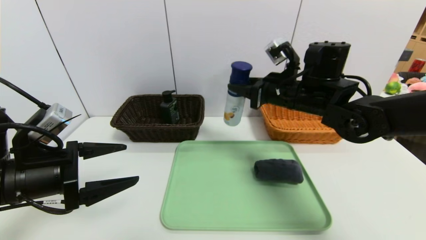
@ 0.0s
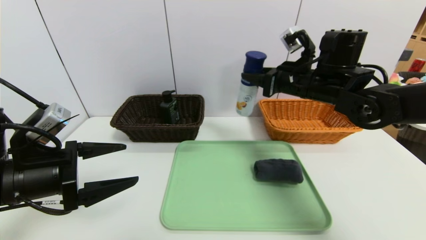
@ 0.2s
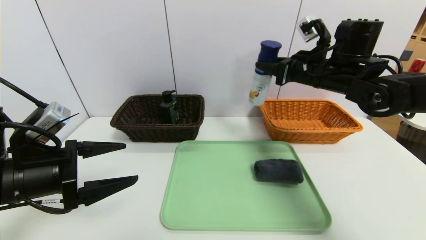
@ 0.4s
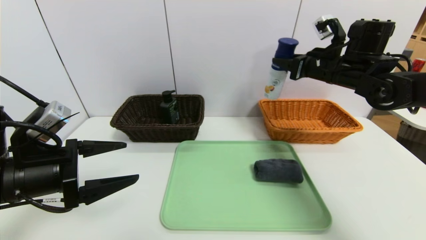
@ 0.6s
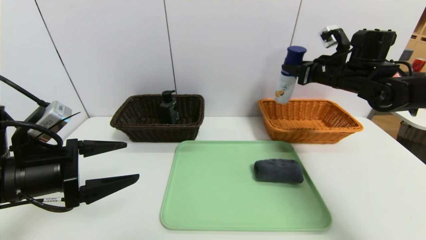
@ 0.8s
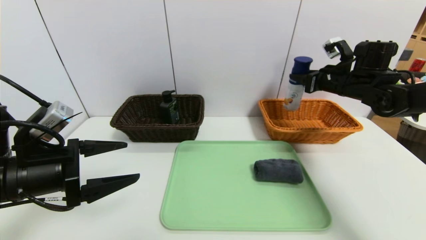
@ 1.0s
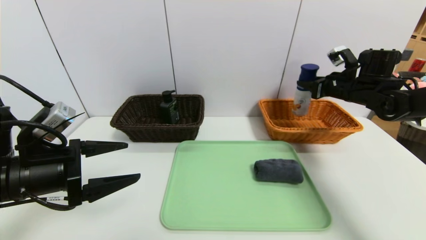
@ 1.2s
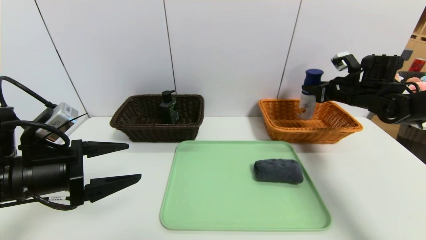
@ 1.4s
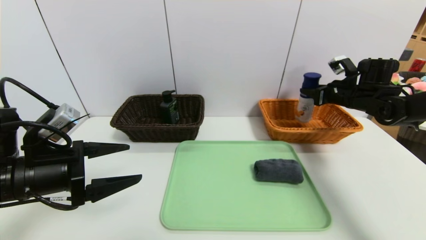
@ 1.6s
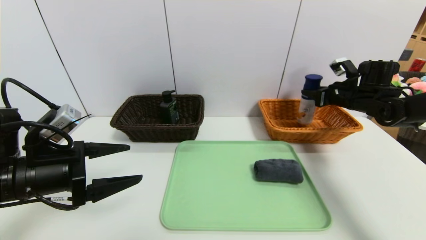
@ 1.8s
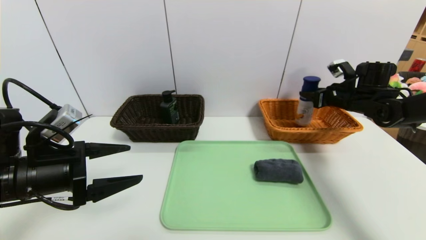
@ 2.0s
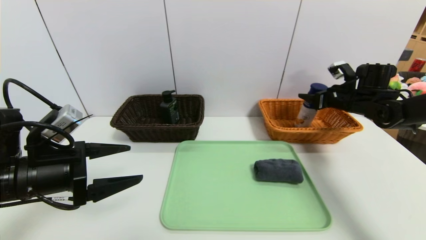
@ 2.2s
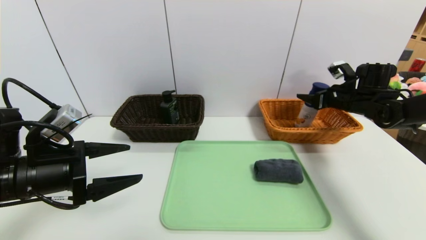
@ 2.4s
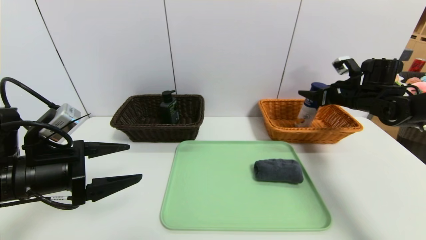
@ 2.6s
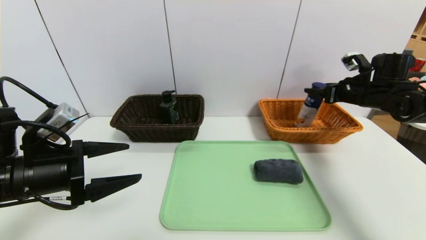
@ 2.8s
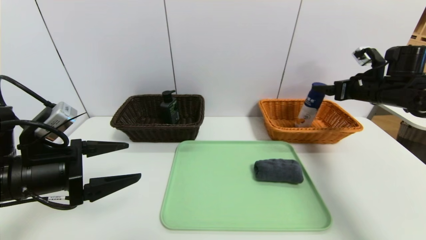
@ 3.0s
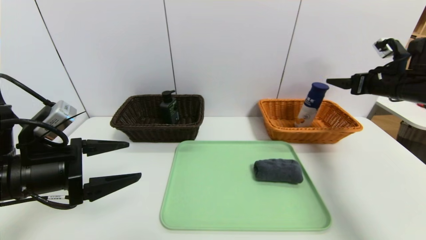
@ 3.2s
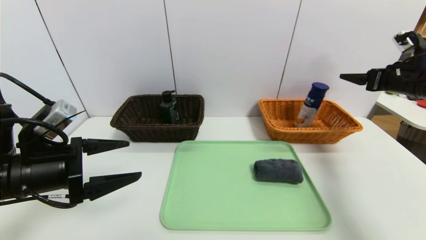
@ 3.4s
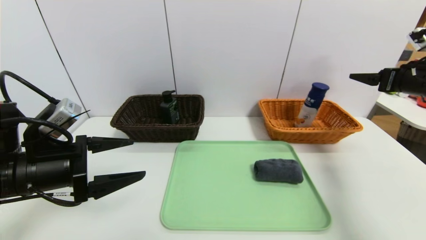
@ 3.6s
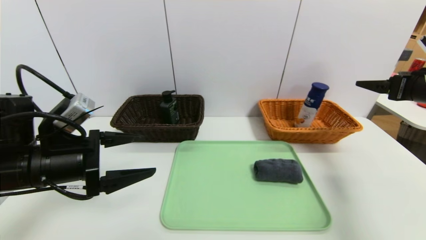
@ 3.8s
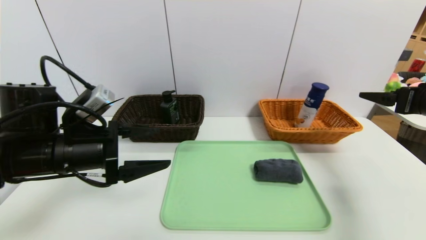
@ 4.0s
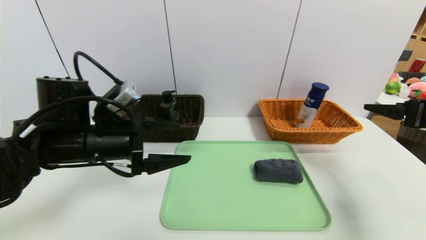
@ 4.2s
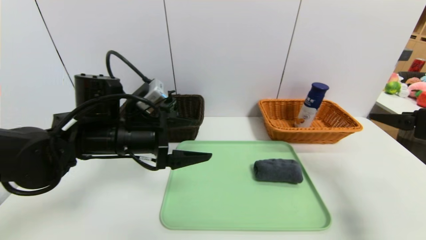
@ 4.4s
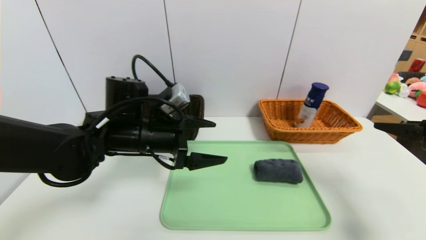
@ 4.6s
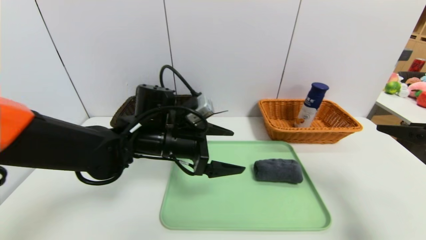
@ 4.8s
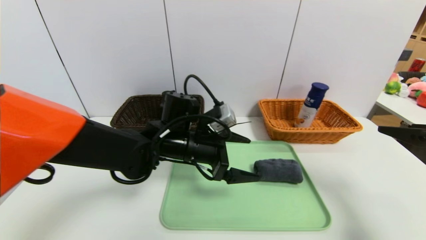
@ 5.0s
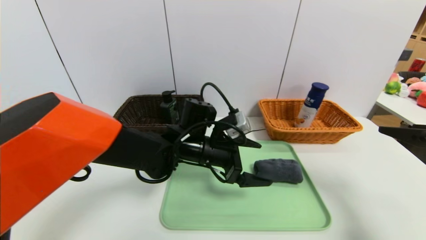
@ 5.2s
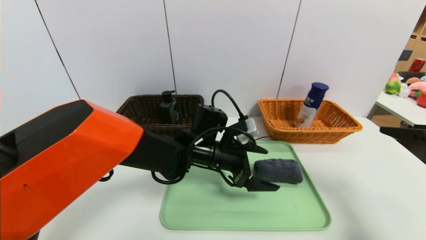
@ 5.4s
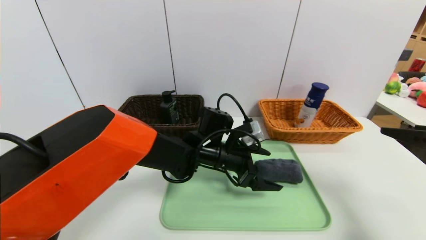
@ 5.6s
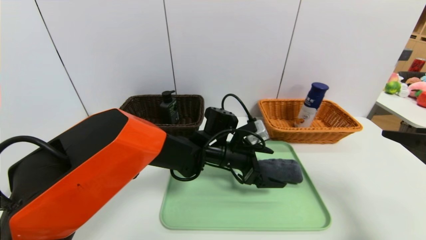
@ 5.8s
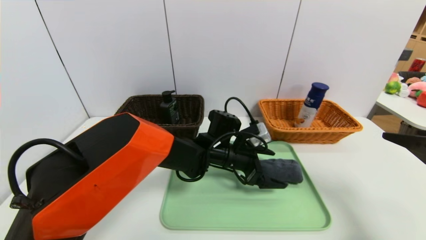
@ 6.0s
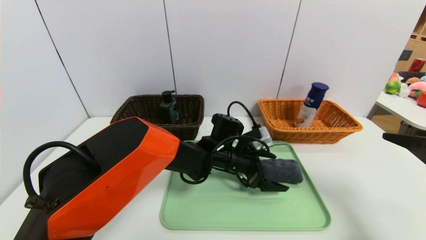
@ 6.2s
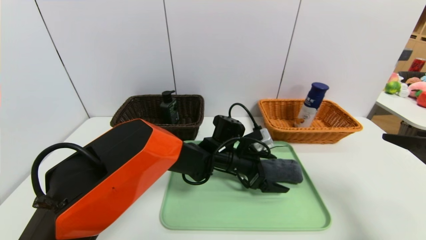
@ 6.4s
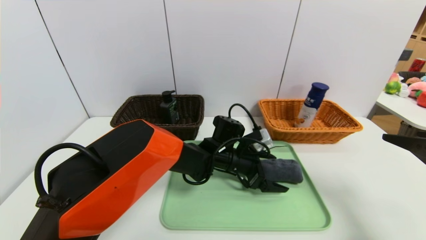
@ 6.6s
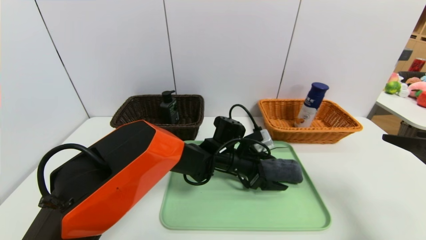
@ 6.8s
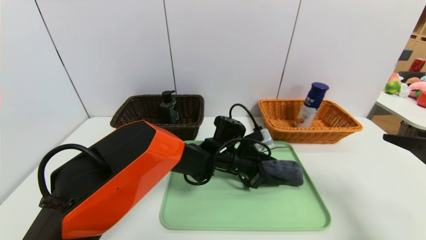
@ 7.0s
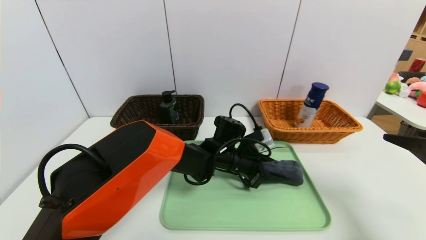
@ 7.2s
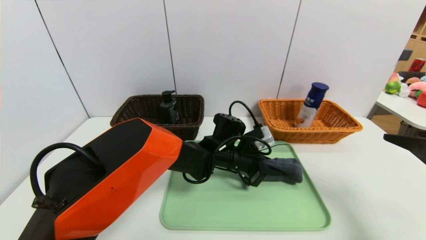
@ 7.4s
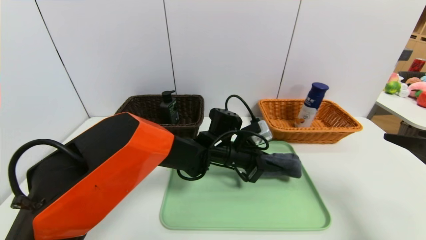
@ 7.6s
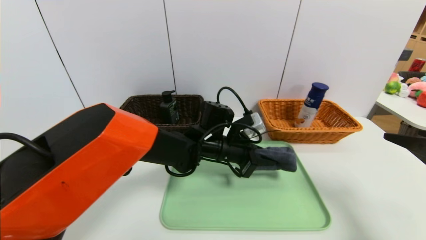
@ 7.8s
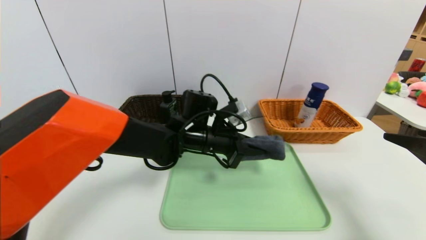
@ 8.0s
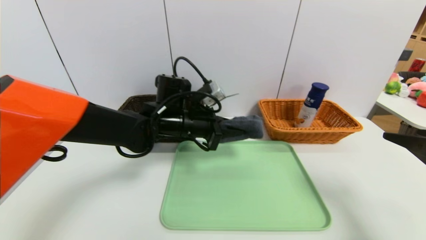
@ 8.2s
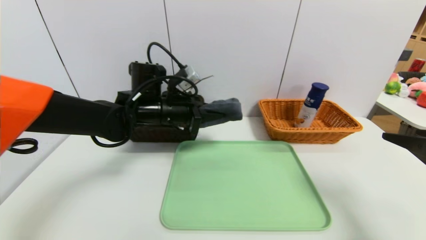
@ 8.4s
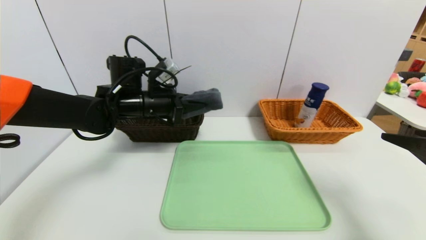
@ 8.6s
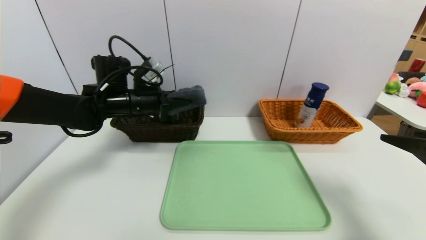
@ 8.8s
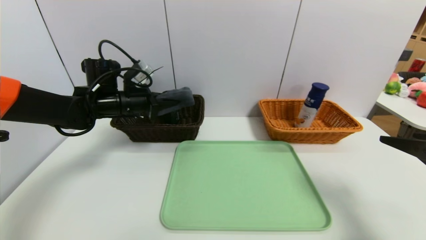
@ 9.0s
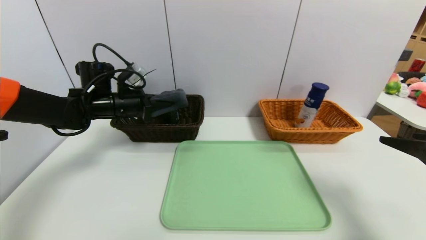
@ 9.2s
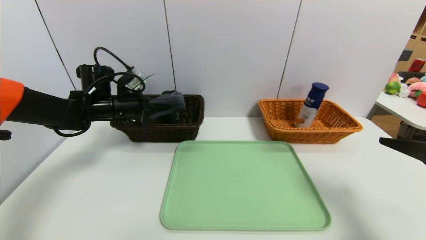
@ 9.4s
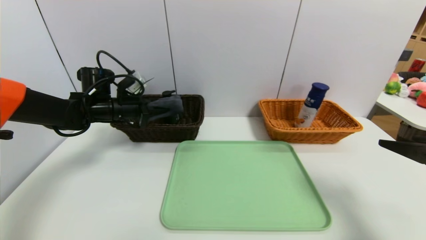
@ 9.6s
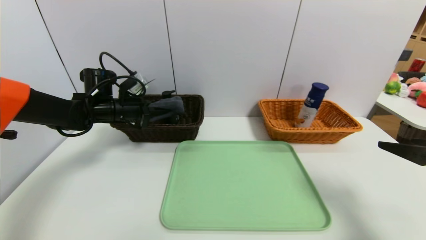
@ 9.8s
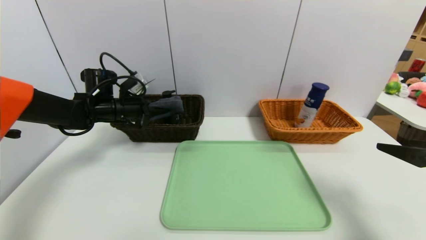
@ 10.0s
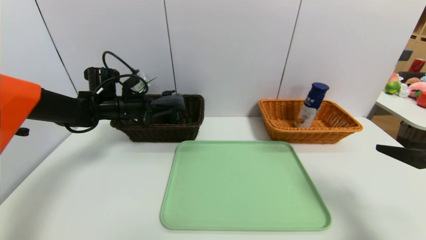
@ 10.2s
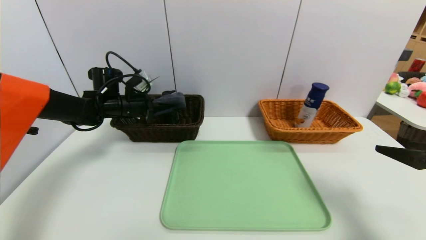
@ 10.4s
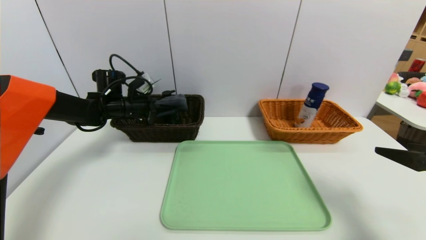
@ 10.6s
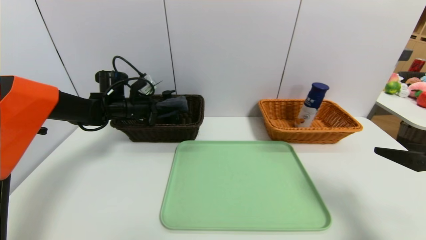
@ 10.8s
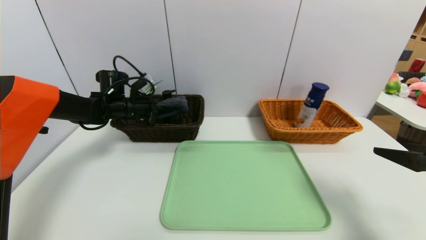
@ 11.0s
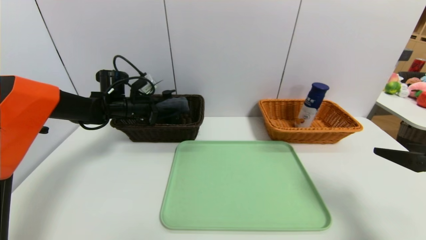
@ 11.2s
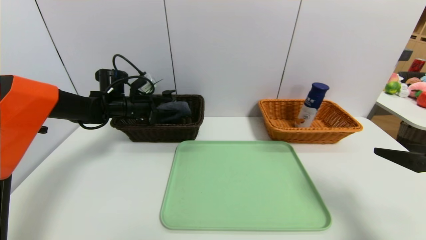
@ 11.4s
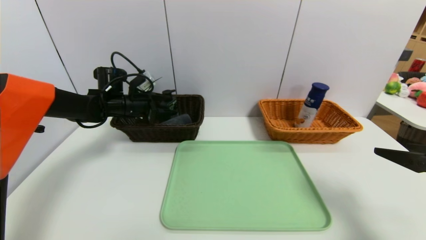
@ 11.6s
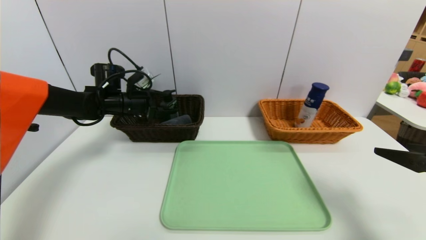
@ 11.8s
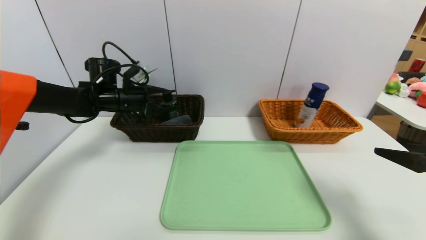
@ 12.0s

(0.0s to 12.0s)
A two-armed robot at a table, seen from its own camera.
Task of the whole recording: place the food in the right basket with the right gripper, and place the non food items in the left basket with the left gripper.
Step, 0.0s - 2.8s: Grasp the yogurt and put it in the right basket.
Step, 3.0s - 11.6s: Grasp the grey towel and put it in the left basket.
0.0s - 1.6s: The right gripper heads to the right and forward, covering roughly 20 cm.
1.6s - 3.0s: The right gripper ends up some 5 cm from where it was, and opens its fingers.
3.0s - 4.4s: The left gripper goes approximately 15 cm to the right and forward. Meanwhile the right gripper travels backward by approximately 20 cm.
4.4s - 6.0s: The left gripper shifts approximately 20 cm to the right and downward. Meanwhile the right gripper changes place by roughly 5 cm.
6.0s - 7.6s: The left gripper closes its fingers.
7.6s - 9.0s: The left gripper shifts some 25 cm to the left.
9.0s - 10.4s: The left gripper moves about 5 cm.
10.4s - 12.0s: The left gripper opens up.

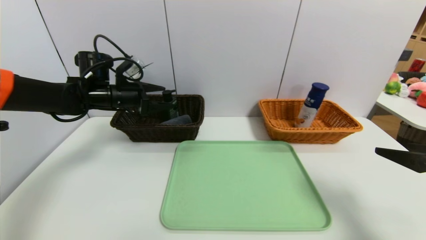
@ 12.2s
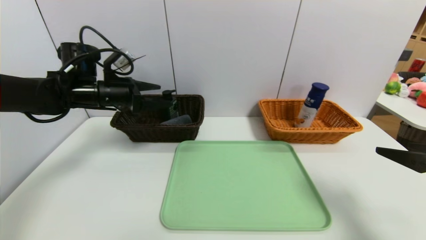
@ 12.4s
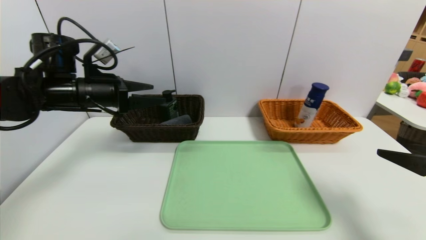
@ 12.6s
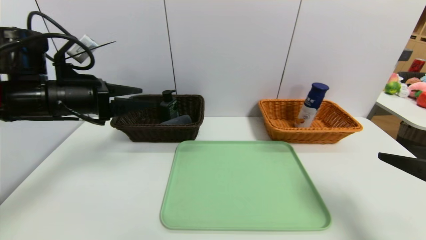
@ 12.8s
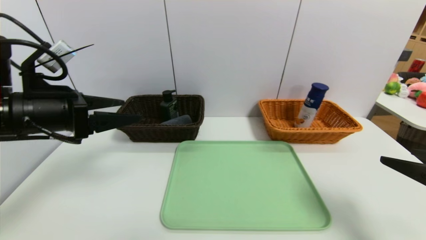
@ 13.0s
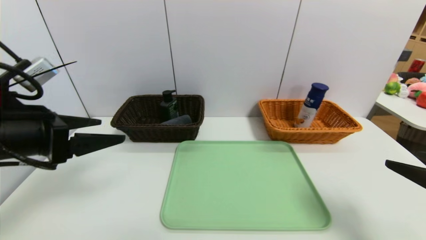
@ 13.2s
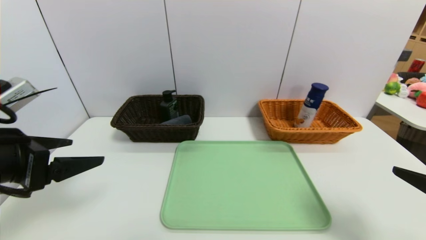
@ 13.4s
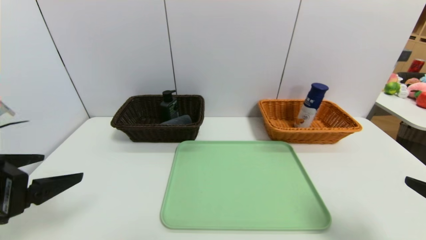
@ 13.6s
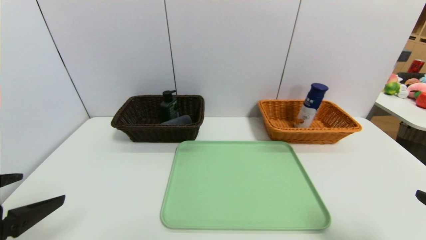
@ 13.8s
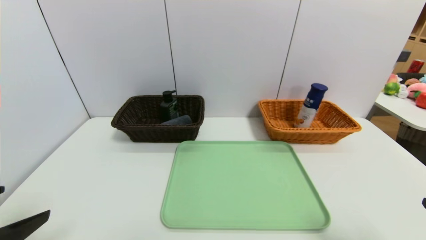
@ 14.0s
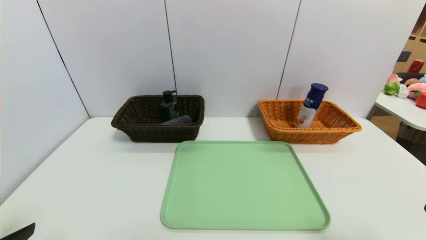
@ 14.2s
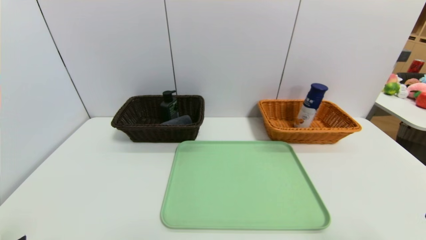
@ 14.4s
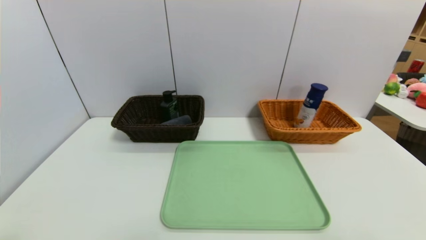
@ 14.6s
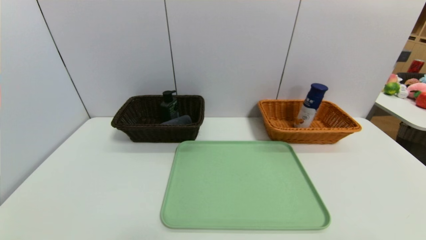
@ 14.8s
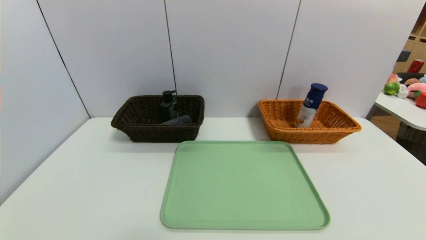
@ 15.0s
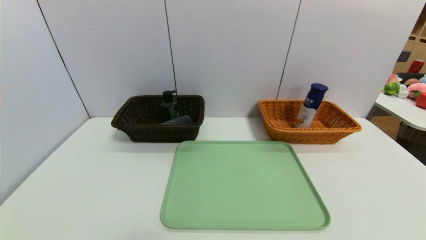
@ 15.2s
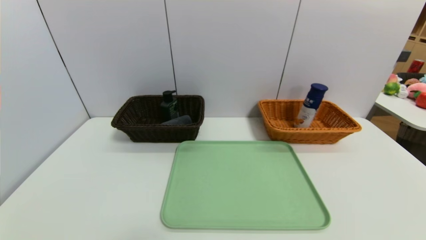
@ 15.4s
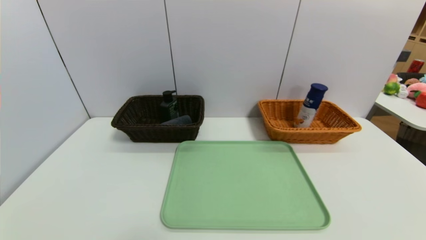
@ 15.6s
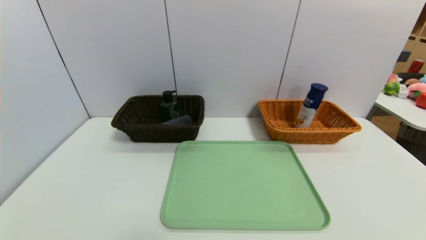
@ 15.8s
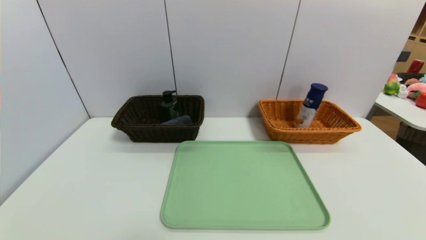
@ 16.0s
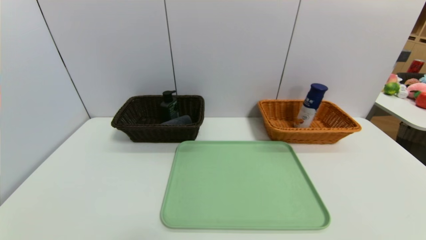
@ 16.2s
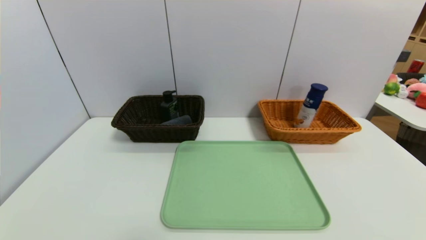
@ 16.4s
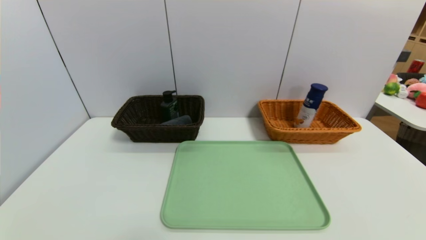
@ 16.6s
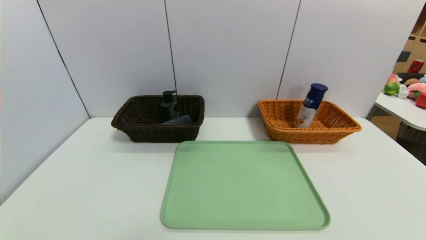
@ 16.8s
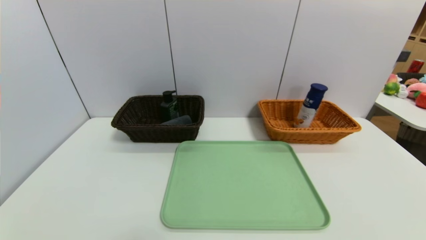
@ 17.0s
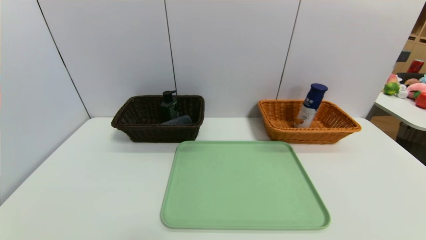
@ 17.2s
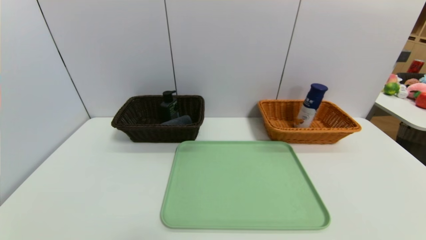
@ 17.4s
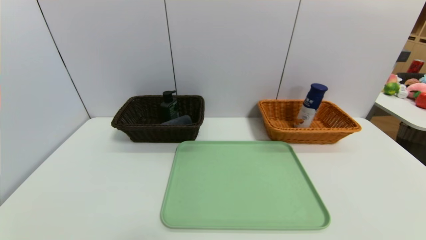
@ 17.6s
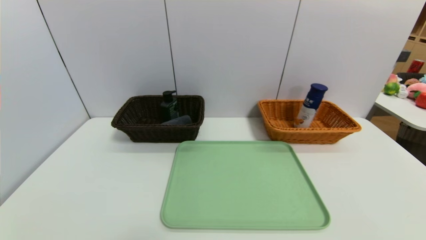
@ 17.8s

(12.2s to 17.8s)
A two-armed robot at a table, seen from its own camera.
Task of the whole recording: place the food in the right basket with the right gripper, and place the non food items in the left basket with the left gripper.
12.2s - 13.6s: The left gripper shifts about 30 cm backward. Meanwhile the right gripper is displaced backward by roughly 5 cm.
13.6s - 15.0s: The left gripper shifts approximately 15 cm backward and downward. Meanwhile the right gripper goes about 10 cm backward.
